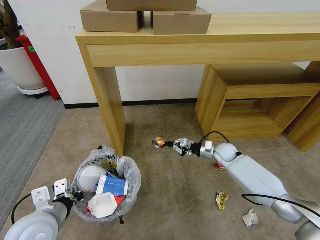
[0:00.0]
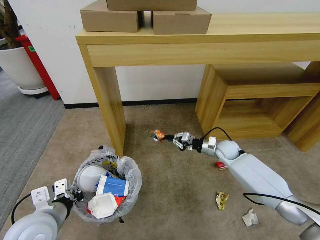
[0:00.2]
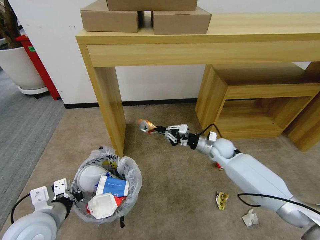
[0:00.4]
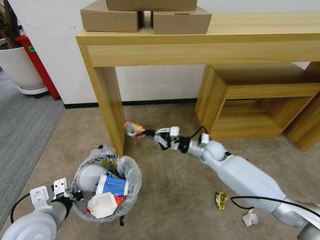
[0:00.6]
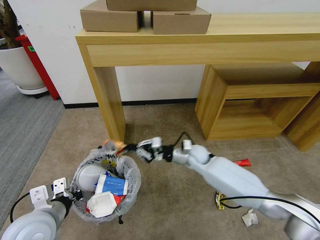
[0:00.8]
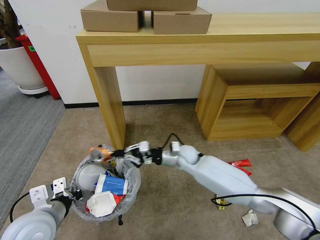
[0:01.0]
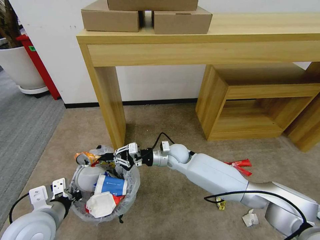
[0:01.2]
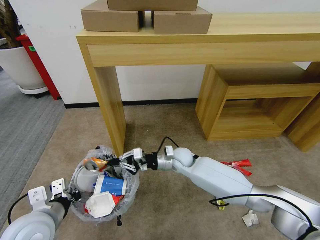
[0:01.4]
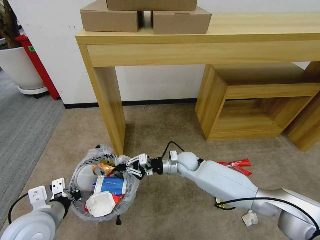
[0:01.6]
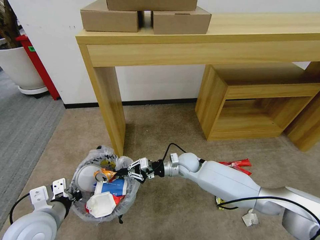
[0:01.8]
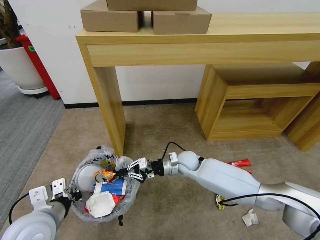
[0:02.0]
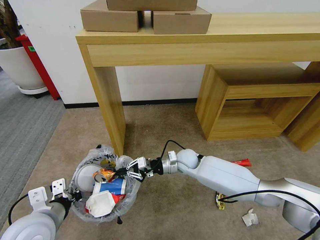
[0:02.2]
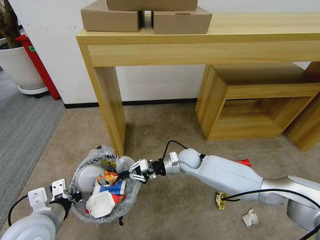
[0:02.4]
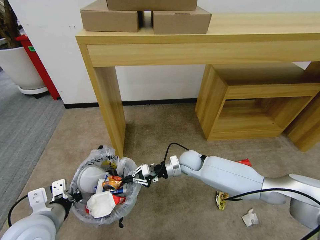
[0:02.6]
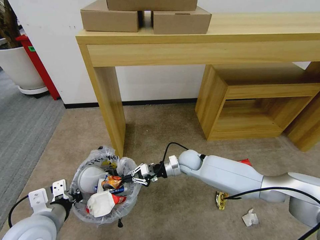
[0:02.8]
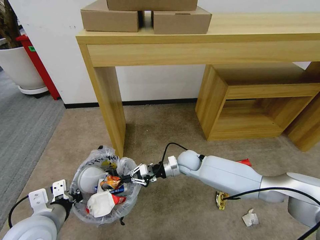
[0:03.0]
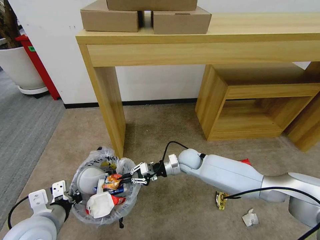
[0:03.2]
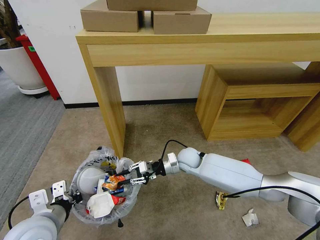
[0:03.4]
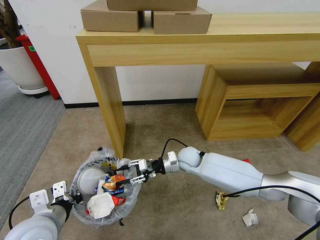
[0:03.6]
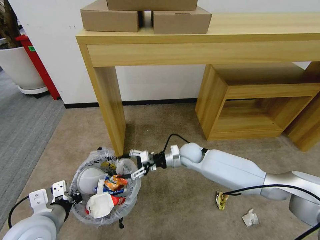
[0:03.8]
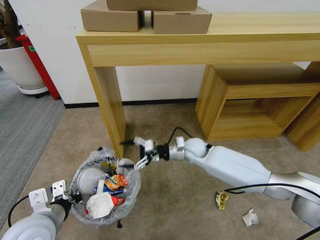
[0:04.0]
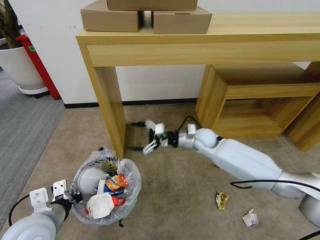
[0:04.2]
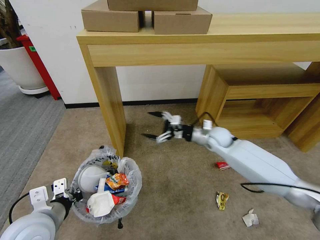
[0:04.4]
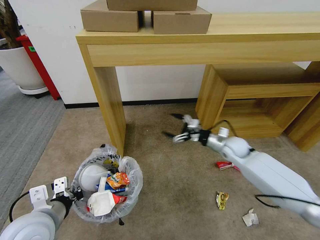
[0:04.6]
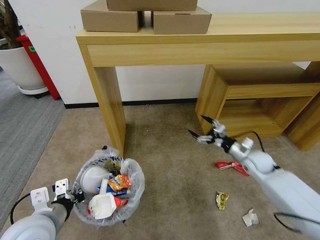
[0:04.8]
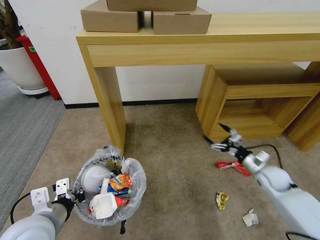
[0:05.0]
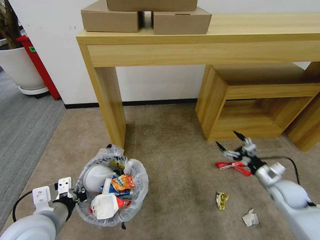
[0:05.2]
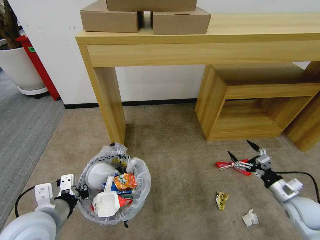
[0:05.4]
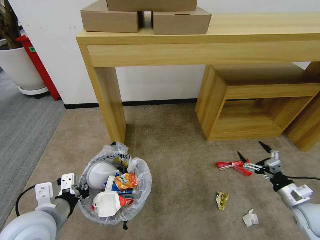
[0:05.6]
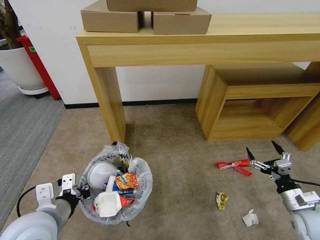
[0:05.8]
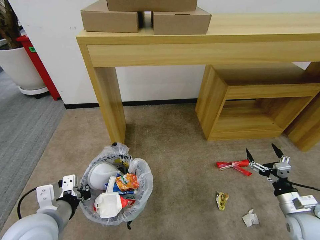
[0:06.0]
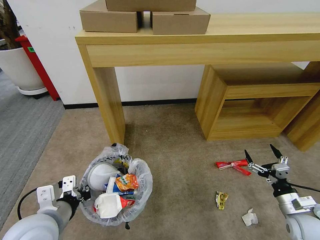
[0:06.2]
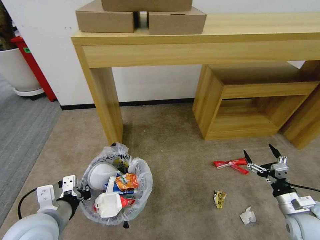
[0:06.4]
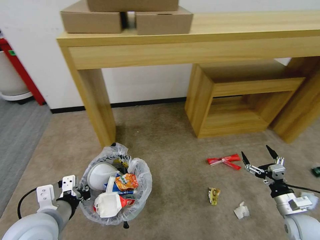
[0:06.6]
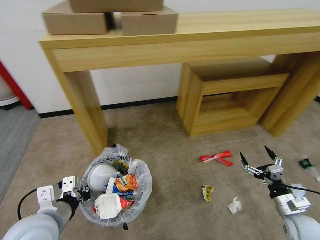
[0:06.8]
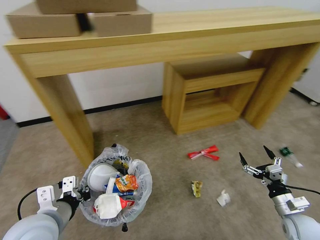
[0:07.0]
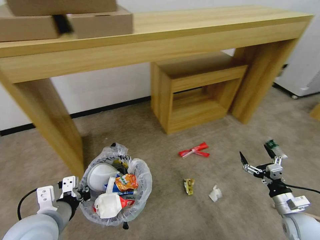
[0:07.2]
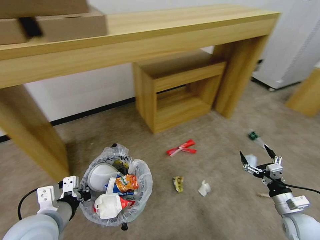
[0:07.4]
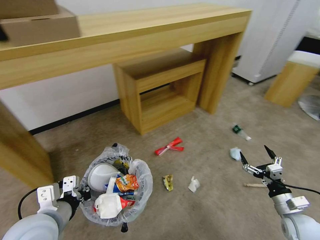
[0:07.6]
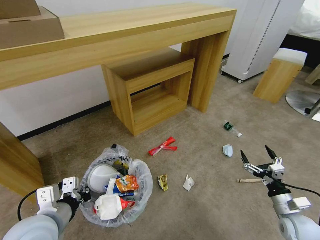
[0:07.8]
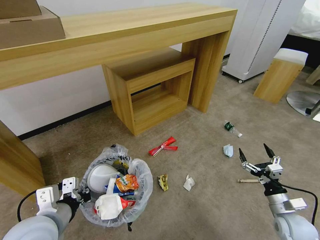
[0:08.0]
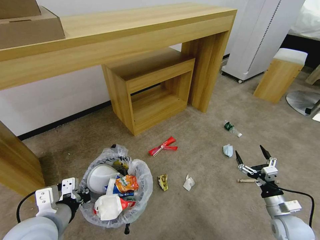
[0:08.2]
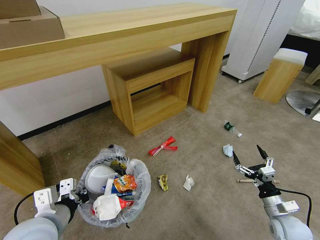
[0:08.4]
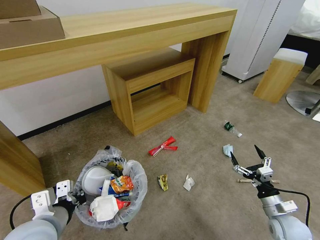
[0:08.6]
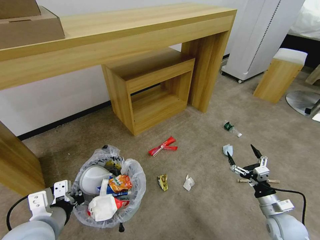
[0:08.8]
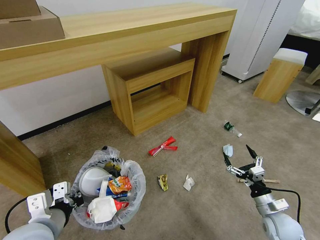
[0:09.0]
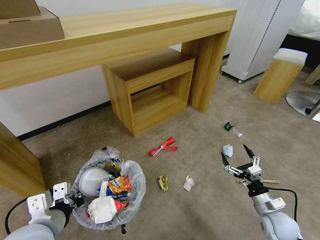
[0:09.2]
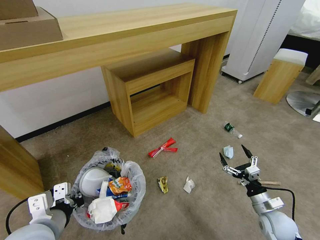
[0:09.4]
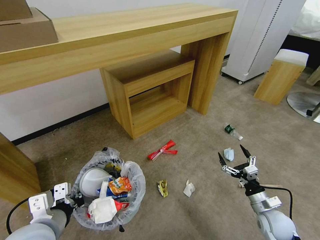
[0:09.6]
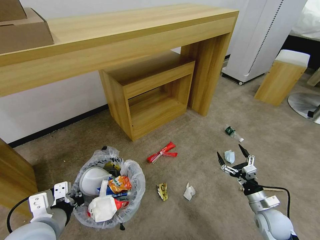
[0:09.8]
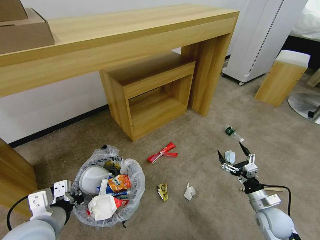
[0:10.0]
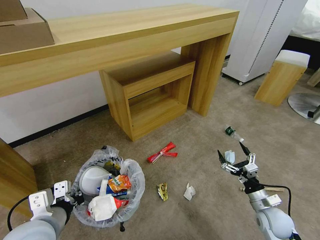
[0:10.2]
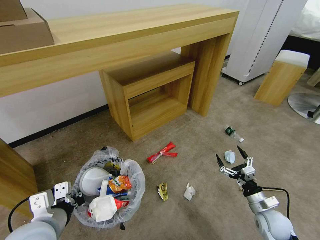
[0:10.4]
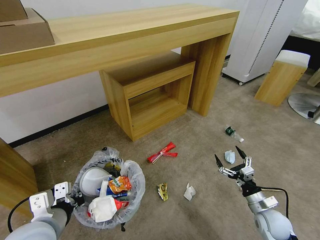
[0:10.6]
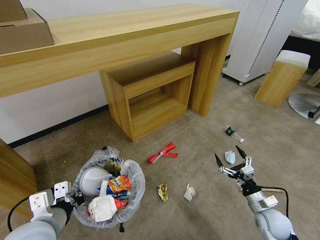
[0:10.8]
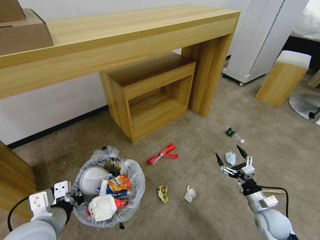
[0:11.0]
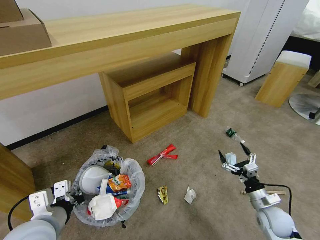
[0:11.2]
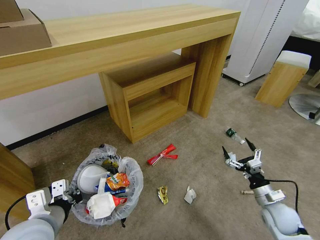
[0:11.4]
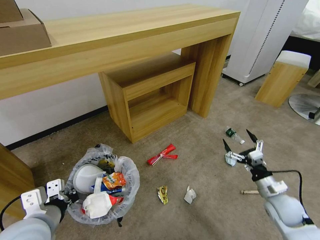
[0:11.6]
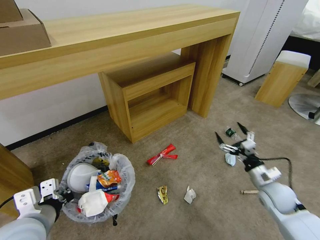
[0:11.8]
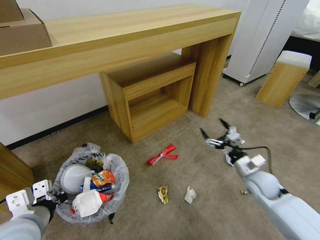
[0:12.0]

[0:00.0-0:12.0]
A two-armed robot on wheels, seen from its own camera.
Task of the whole recording: Pick up the trash bin and place the garbage on the floor into it.
0:00.0 to 0:01.6: The right gripper goes about 20 cm to the left.
0:01.6 to 0:03.0: The grippers make only small movements.
0:03.0 to 0:04.4: The right gripper goes about 15 cm to the right and upward, and opens up.
0:04.4 to 0:06.0: The right gripper is displaced backward and to the right by approximately 35 cm.
0:07.6 to 0:09.0: The right gripper shifts by roughly 5 cm.
0:09.0 to 0:10.4: There are only small adjustments of the grippers.
0:10.4 to 0:12.0: The right gripper heads forward and upward, covering some 15 cm.

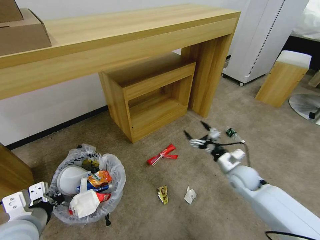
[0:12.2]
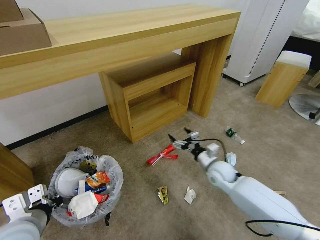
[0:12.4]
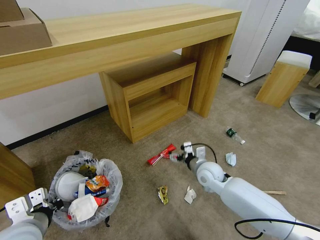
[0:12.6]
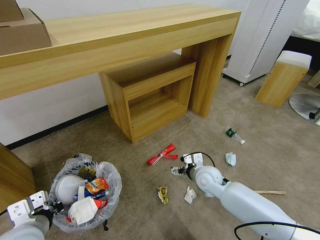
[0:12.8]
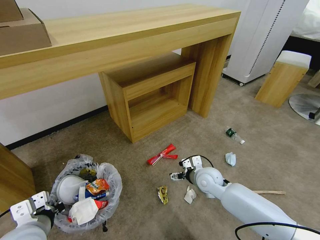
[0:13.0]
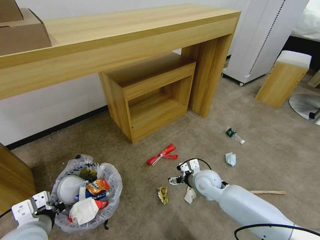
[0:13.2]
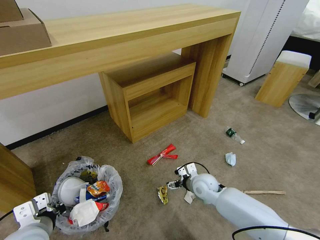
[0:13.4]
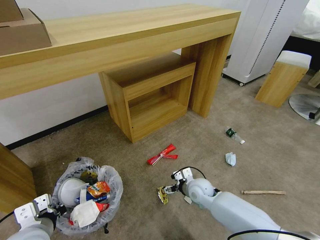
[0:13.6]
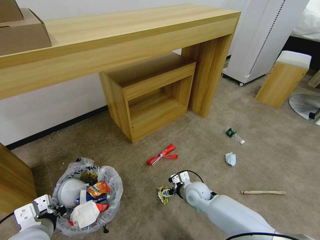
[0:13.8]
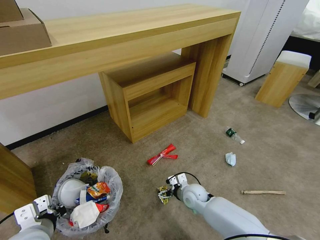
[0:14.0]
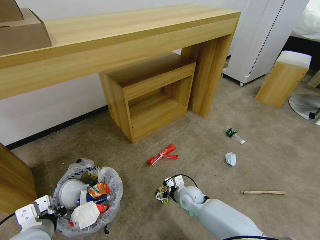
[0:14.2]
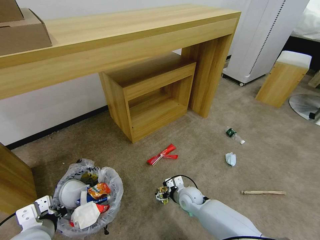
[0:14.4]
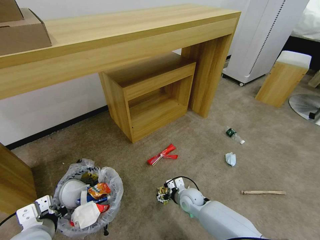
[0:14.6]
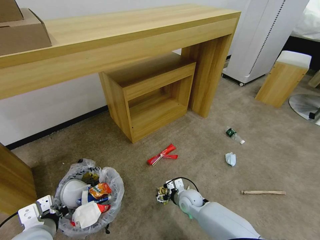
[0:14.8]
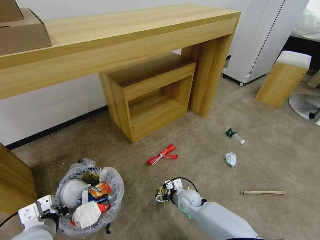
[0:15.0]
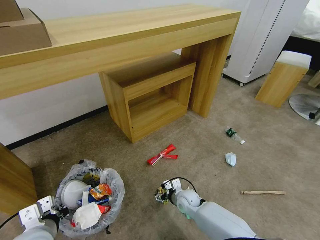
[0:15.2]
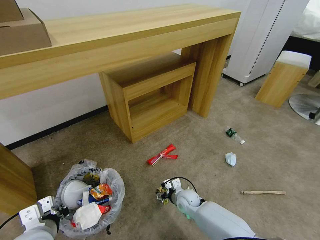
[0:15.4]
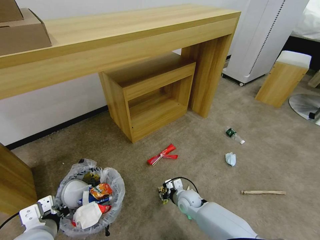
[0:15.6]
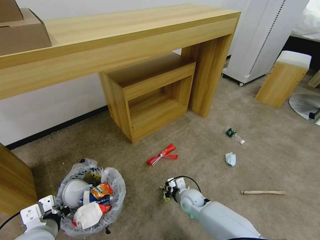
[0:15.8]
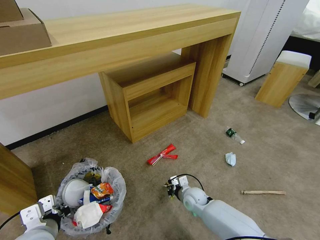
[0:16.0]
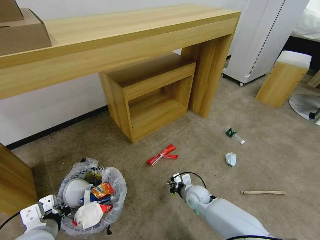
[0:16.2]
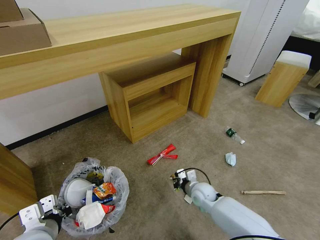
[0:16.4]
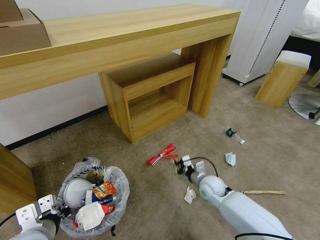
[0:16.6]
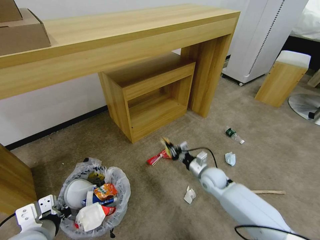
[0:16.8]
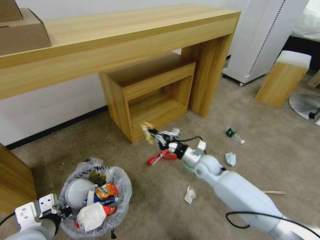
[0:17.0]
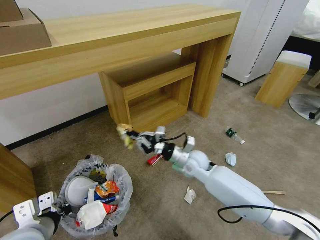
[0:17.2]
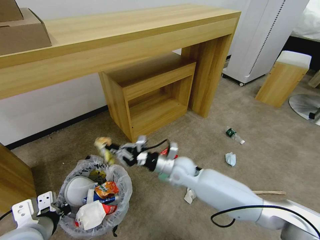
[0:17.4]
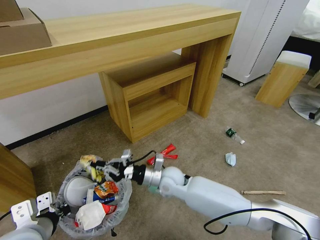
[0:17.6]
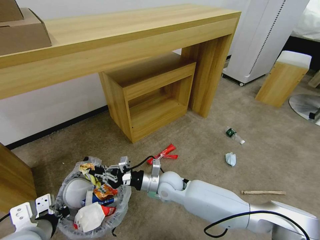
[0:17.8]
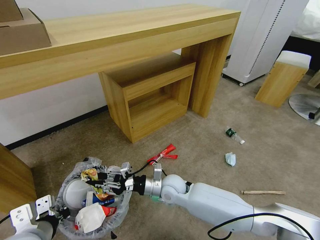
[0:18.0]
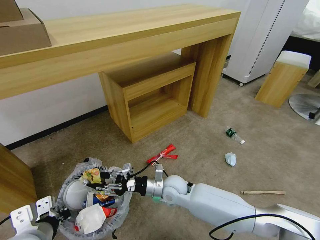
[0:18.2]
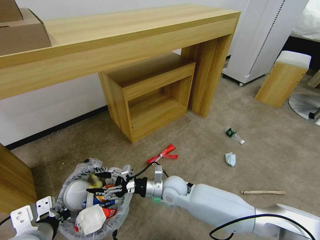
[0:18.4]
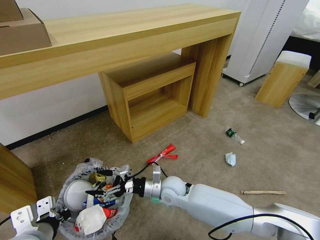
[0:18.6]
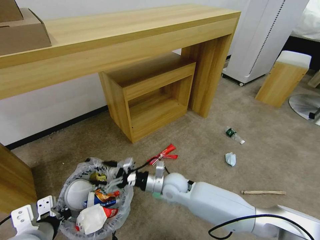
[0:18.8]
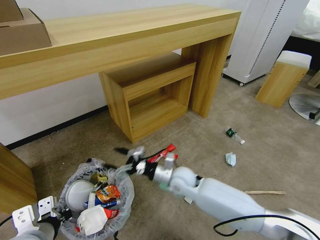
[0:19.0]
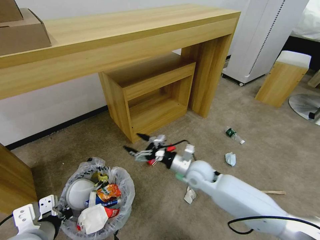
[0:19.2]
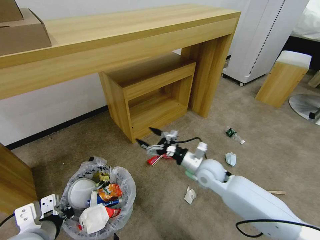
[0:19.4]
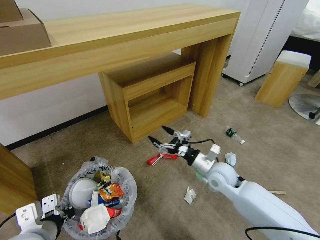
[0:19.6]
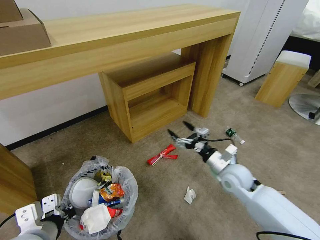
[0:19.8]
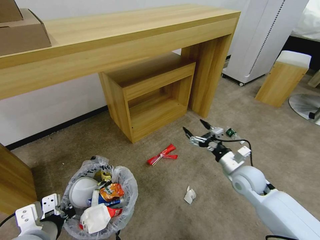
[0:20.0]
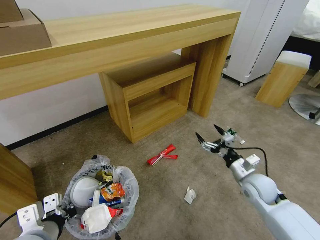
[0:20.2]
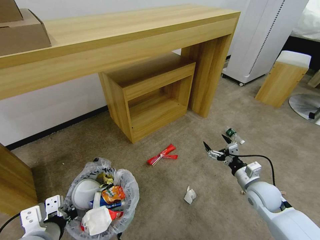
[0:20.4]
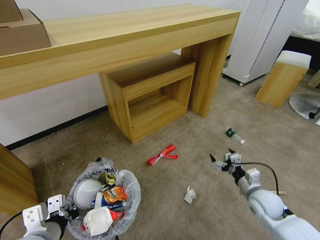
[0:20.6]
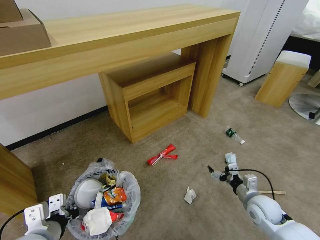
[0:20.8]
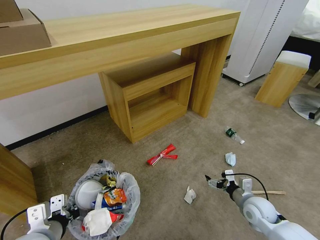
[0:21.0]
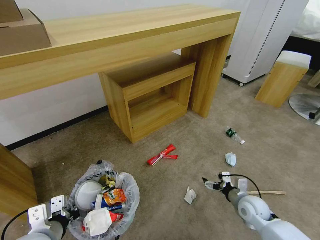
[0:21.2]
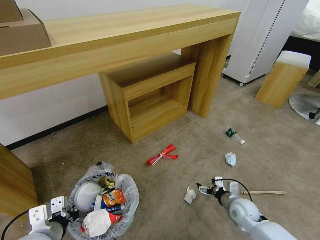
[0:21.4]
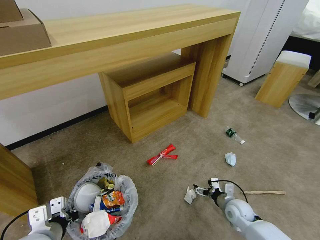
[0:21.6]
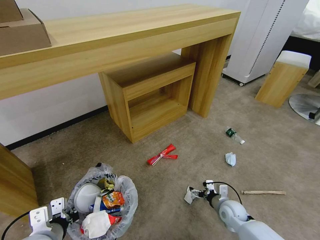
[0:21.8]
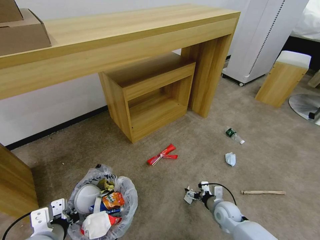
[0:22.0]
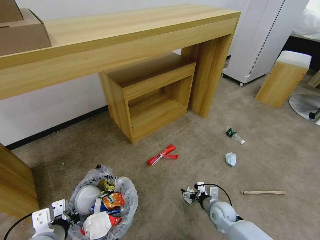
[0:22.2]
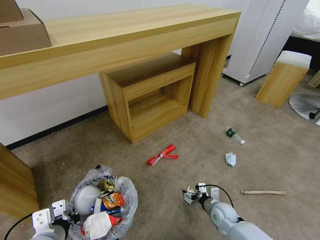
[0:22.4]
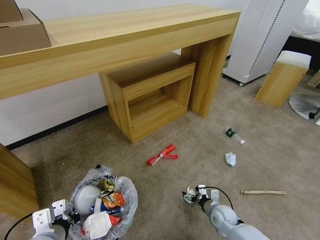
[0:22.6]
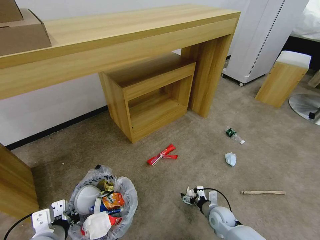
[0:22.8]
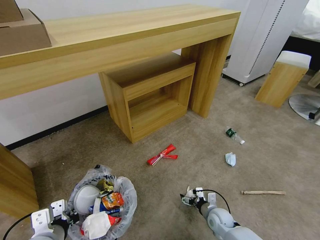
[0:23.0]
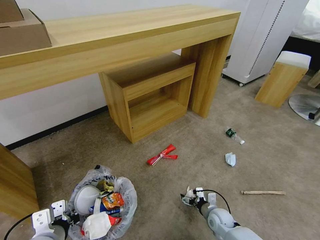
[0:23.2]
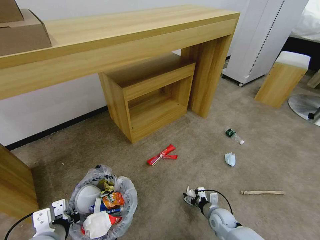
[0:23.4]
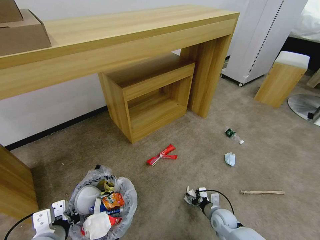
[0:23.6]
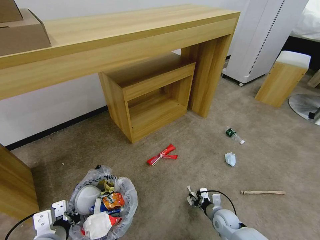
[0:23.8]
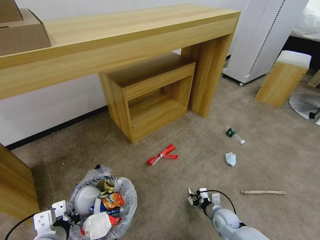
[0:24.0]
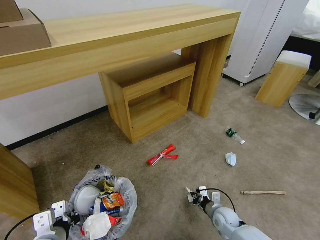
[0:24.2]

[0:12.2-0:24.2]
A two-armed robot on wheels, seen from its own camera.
Task of the whole recording: Pick up the trash bin and place the garbage on the floor into it.
0:12.2 to 0:13.8: The right gripper heads to the left and downward, covering about 20 cm, while the left gripper shifts roughly 5 cm downward.
0:13.8 to 0:15.2: The right gripper goes roughly 5 cm downward.
0:15.2 to 0:16.6: The right gripper travels to the right and upward by roughly 10 cm, and closes up.
0:16.6 to 0:18.2: The right gripper travels to the left by roughly 15 cm, and opens its fingers.
0:18.2 to 0:19.8: The right gripper heads to the right, covering roughly 20 cm, and opens up.
0:19.8 to 0:21.2: The right gripper heads downward, to the right and backward, covering approximately 15 cm.
0:21.2 to 0:22.6: The right gripper is displaced downward and to the left by approximately 10 cm.
0:22.6 to 0:24.2: The right gripper closes up.
